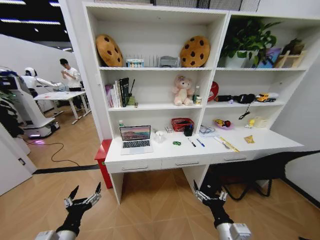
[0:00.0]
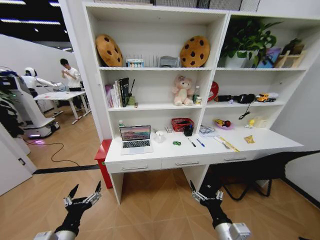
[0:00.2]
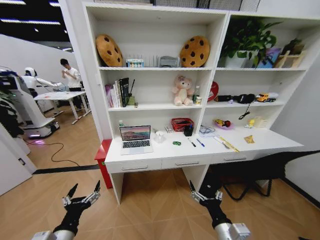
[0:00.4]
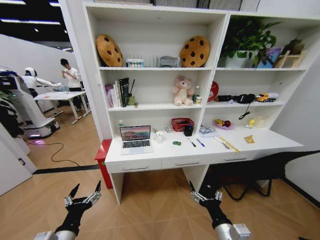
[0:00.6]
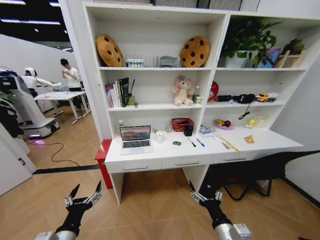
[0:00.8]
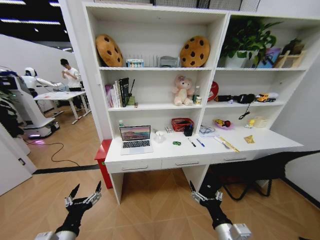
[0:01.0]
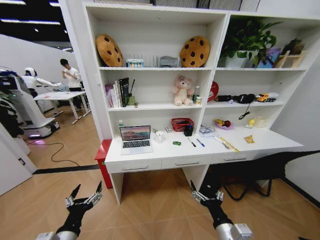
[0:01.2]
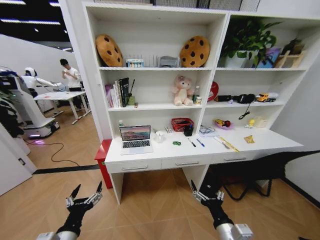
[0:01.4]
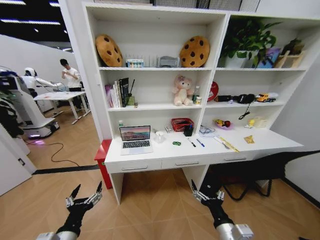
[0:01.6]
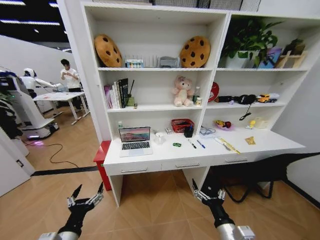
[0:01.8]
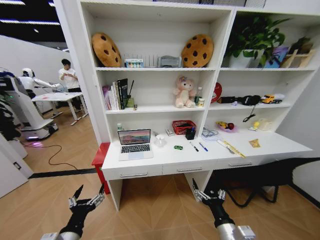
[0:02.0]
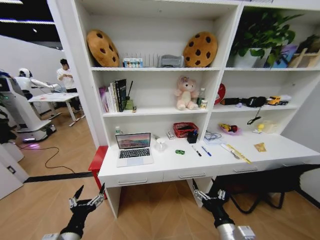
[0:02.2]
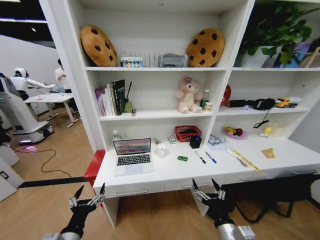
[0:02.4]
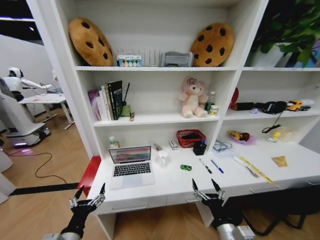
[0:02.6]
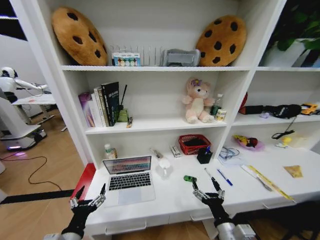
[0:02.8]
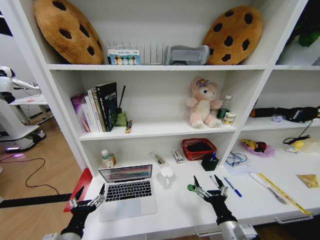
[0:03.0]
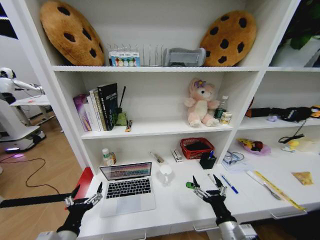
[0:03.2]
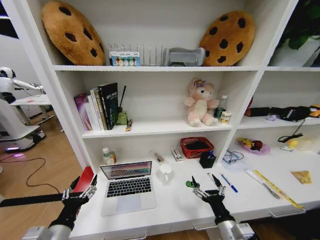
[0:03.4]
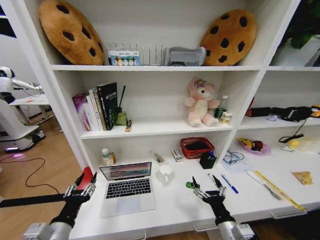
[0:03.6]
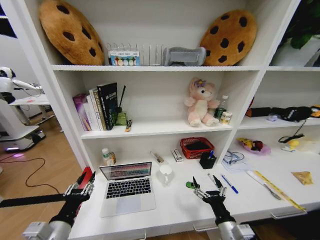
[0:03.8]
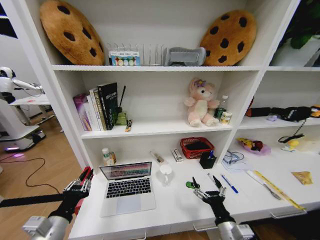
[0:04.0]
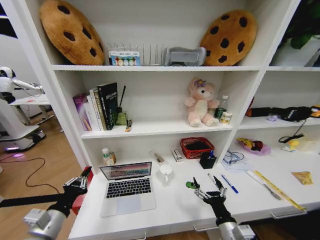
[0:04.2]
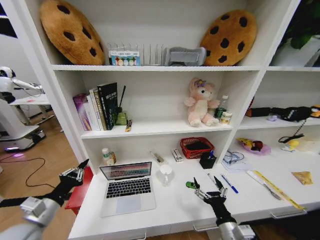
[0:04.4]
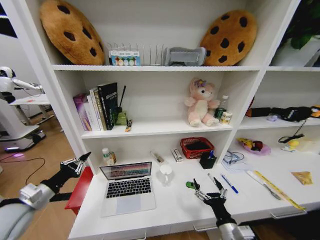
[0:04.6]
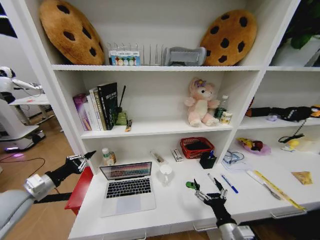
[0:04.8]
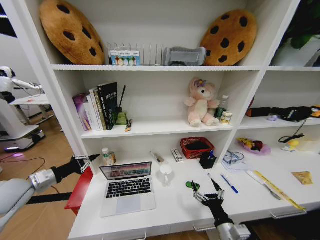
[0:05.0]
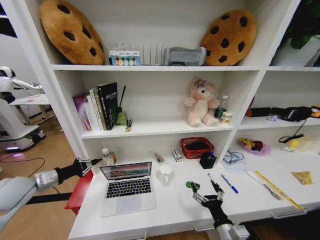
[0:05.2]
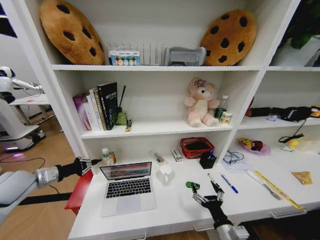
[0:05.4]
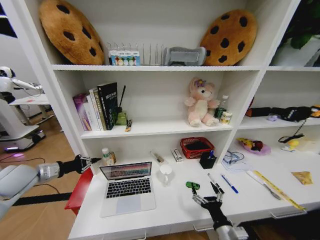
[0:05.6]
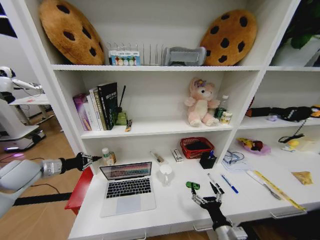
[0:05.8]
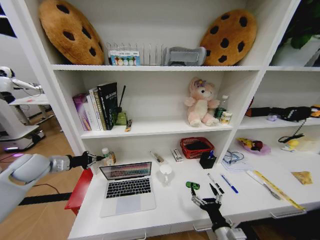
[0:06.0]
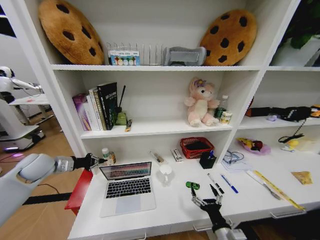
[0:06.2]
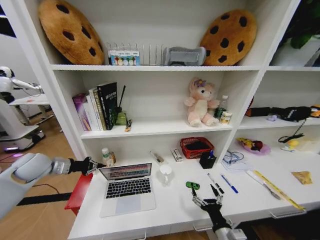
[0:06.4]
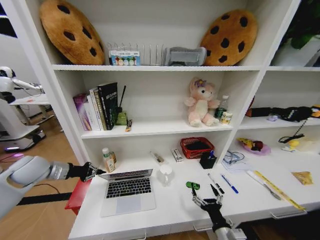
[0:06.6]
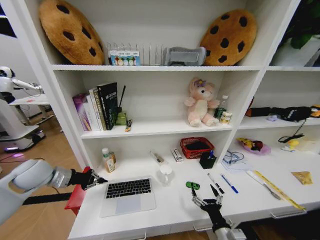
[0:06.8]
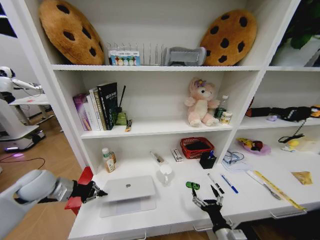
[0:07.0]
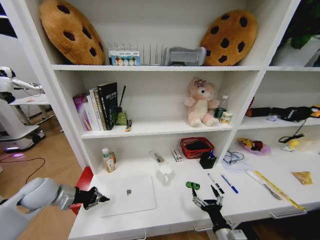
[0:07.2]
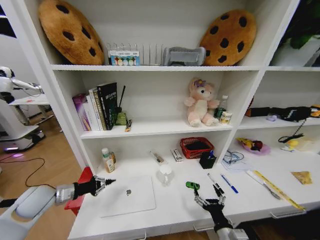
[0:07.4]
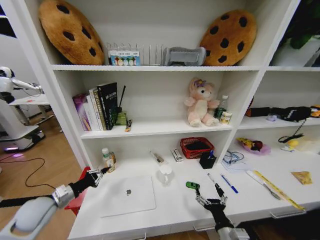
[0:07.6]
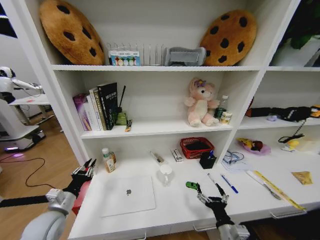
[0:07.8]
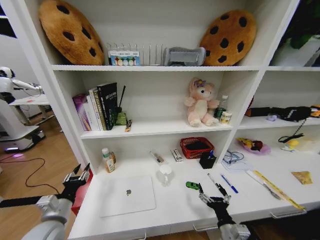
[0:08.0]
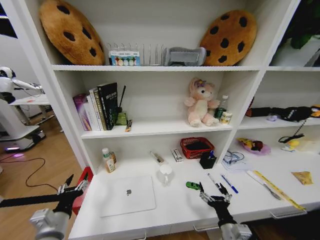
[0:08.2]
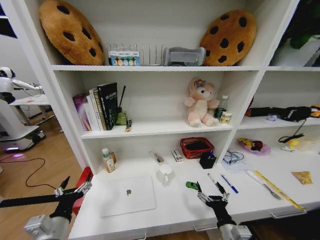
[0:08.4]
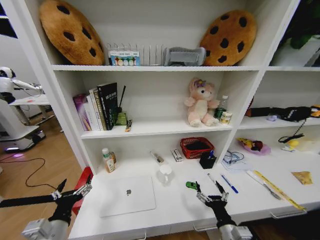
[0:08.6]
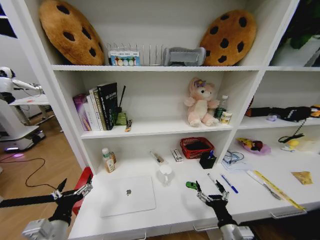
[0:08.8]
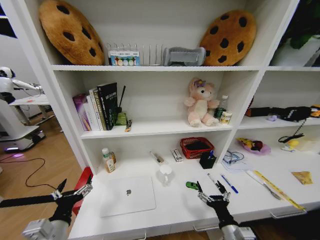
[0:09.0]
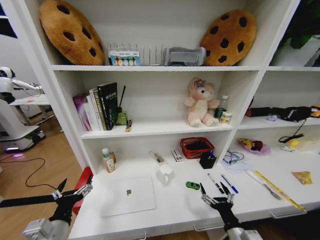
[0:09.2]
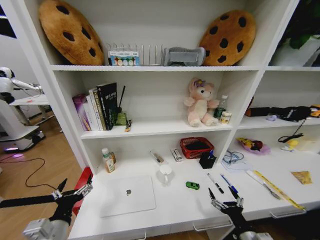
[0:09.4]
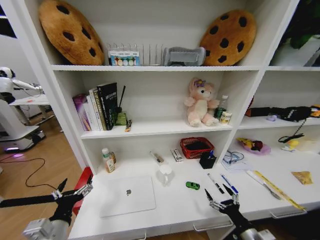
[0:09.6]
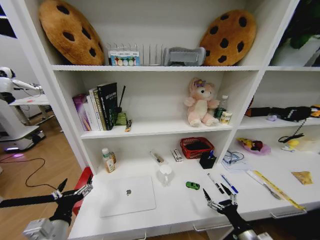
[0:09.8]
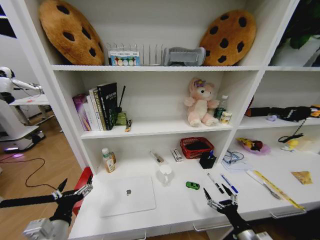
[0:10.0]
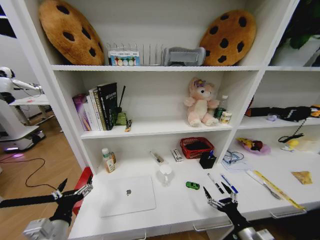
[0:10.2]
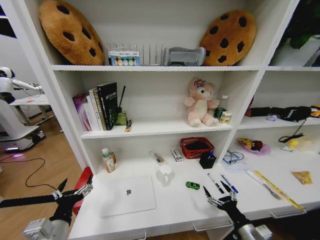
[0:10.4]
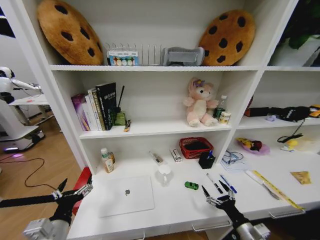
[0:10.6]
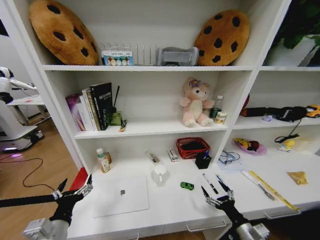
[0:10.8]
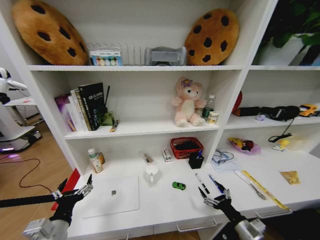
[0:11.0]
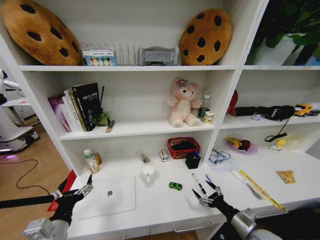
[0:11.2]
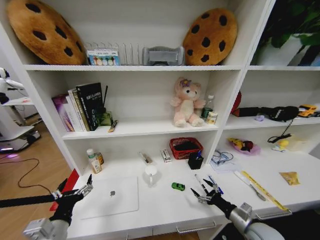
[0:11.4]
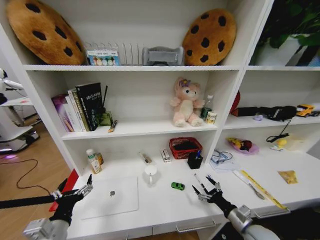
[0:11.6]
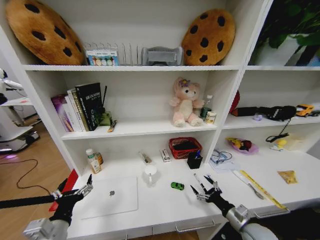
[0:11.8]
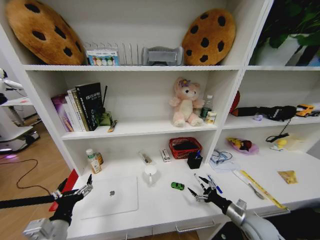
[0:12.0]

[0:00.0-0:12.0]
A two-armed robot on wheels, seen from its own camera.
Task of the whole recording: Organize the objects on the table.
0:03.0 to 0:04.4: The left gripper shifts about 15 cm to the left, forward and upward, and closes.
0:04.4 to 0:06.0: The left gripper goes roughly 20 cm forward and to the left.
0:06.0 to 0:07.6: The left gripper is displaced downward and backward by approximately 15 cm.
0:07.6 to 0:09.0: The left gripper shifts some 20 cm backward and to the right, and opens.
0:09.0 to 0:10.4: The right gripper moves to the right, about 10 cm.
0:10.4 to 0:12.0: The right gripper goes roughly 10 cm forward.

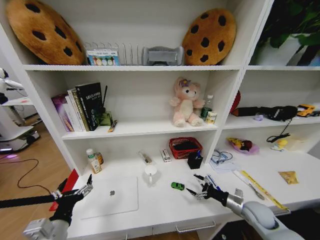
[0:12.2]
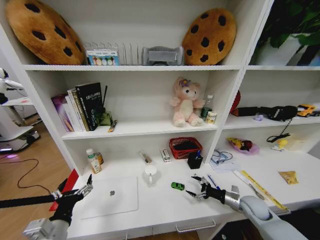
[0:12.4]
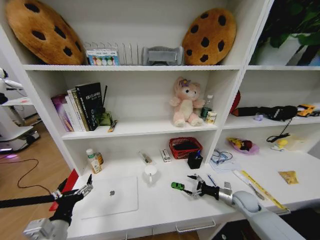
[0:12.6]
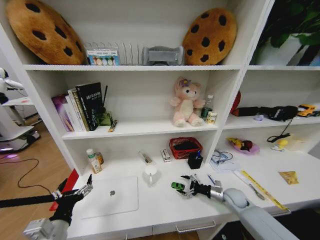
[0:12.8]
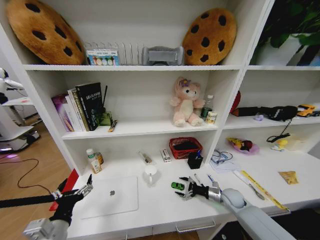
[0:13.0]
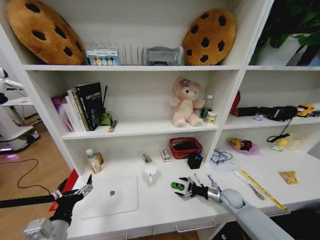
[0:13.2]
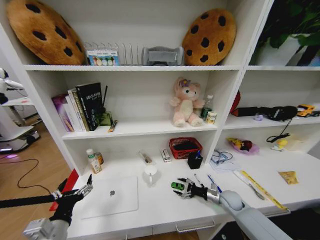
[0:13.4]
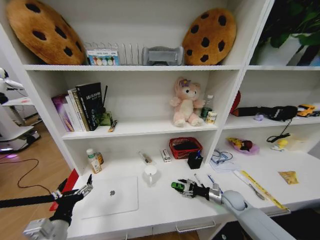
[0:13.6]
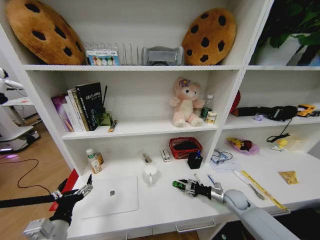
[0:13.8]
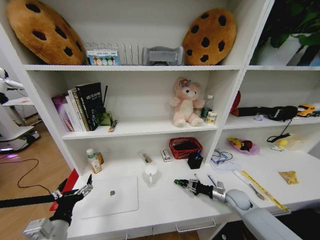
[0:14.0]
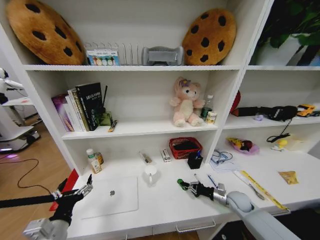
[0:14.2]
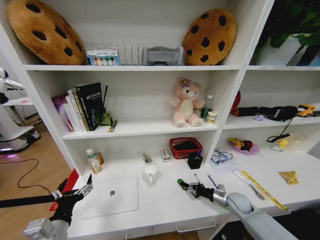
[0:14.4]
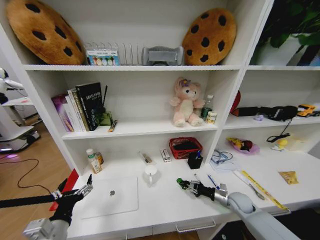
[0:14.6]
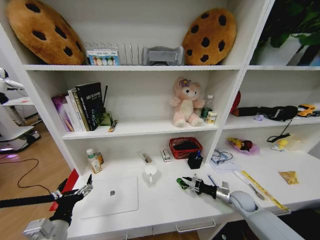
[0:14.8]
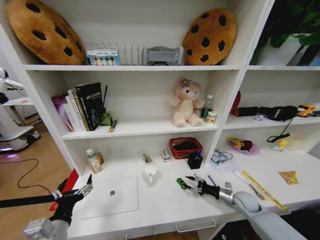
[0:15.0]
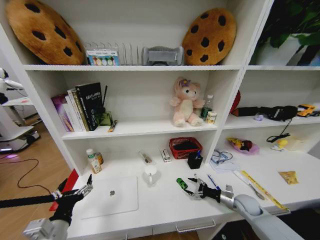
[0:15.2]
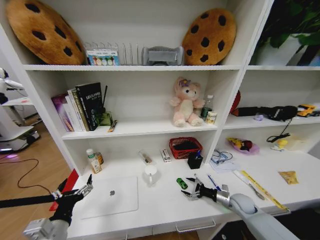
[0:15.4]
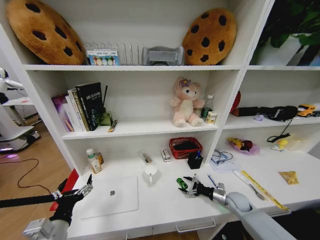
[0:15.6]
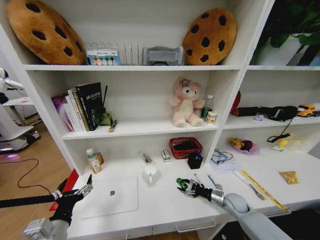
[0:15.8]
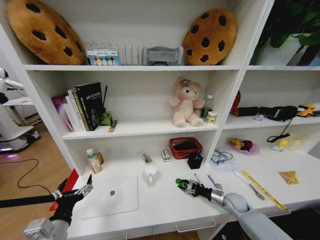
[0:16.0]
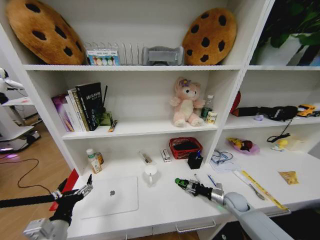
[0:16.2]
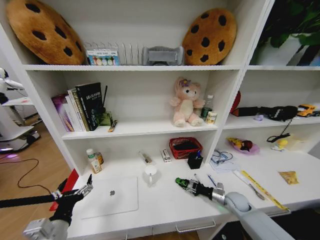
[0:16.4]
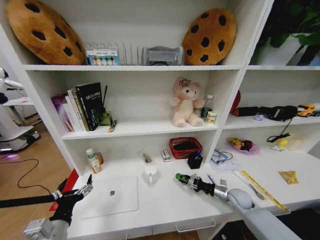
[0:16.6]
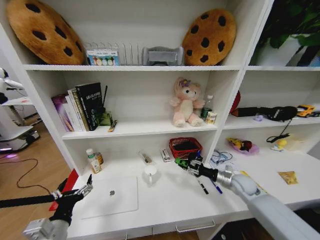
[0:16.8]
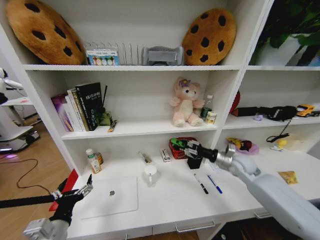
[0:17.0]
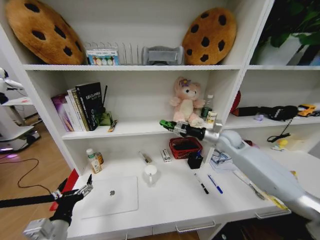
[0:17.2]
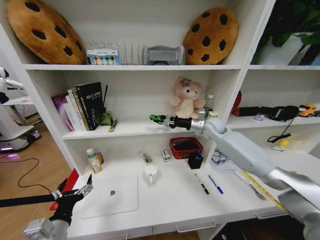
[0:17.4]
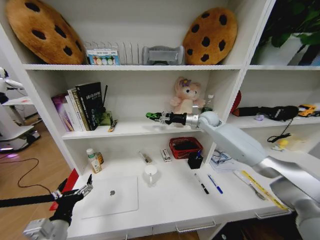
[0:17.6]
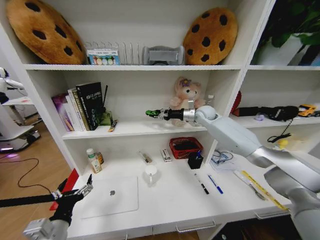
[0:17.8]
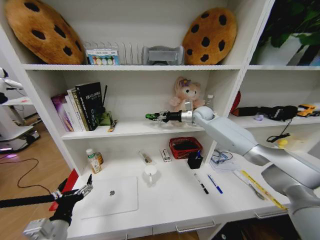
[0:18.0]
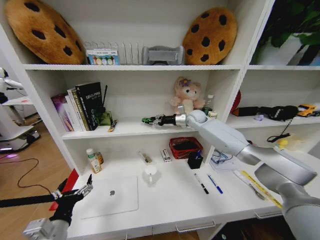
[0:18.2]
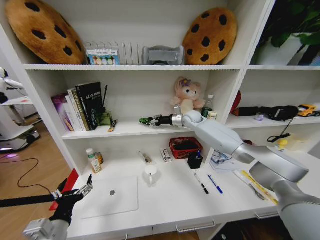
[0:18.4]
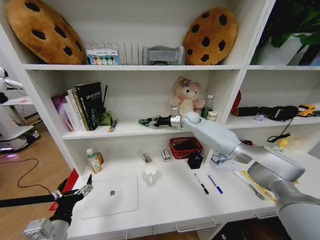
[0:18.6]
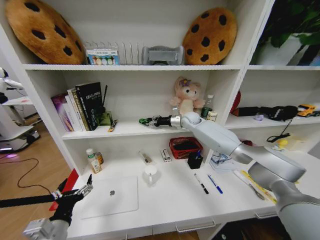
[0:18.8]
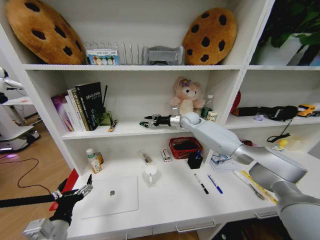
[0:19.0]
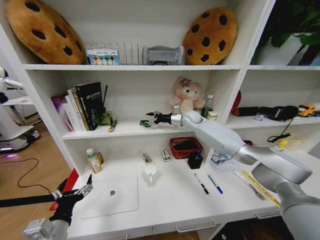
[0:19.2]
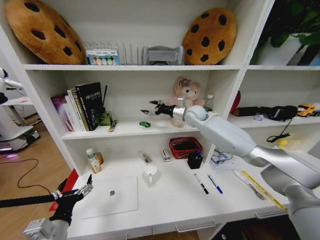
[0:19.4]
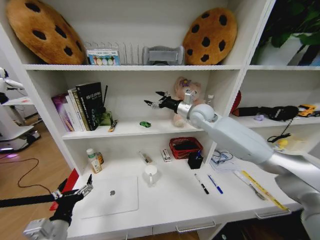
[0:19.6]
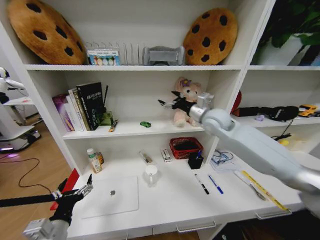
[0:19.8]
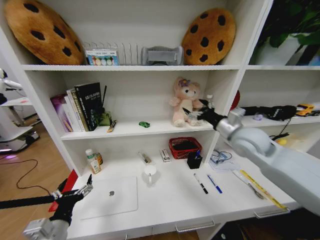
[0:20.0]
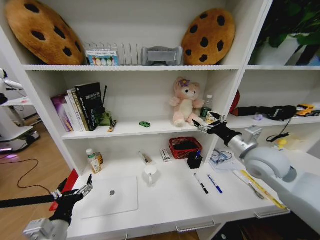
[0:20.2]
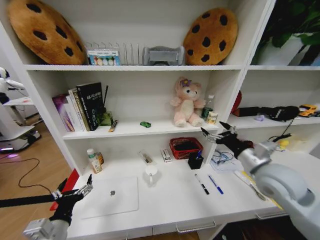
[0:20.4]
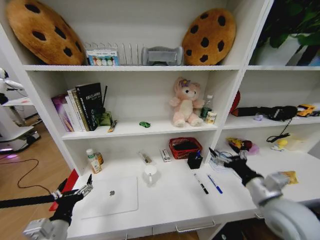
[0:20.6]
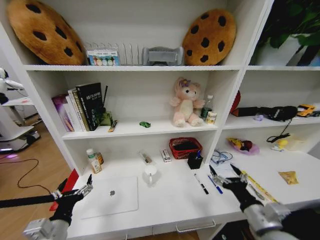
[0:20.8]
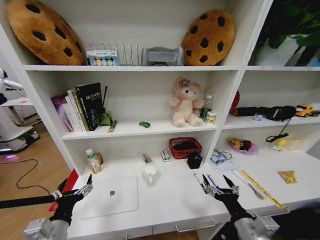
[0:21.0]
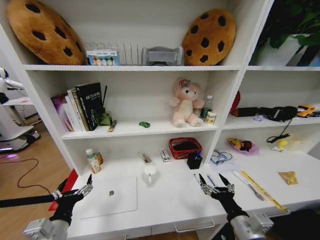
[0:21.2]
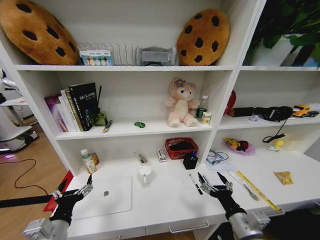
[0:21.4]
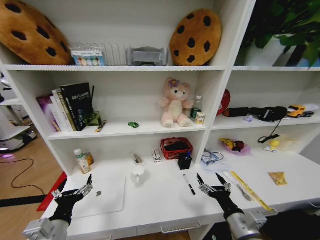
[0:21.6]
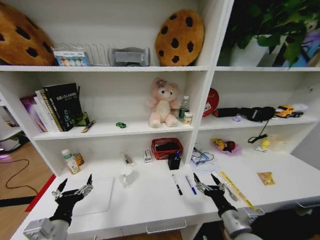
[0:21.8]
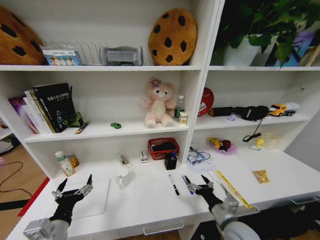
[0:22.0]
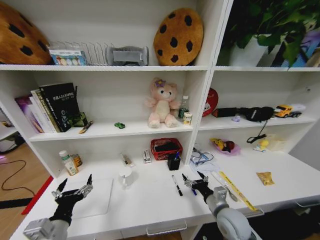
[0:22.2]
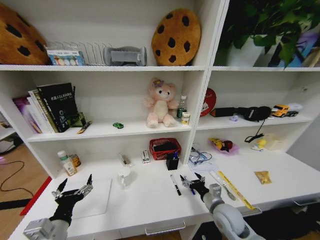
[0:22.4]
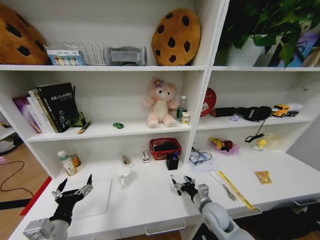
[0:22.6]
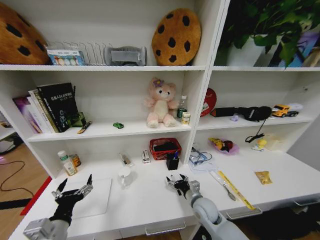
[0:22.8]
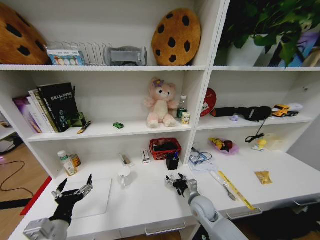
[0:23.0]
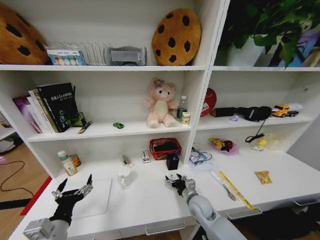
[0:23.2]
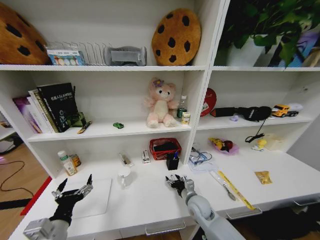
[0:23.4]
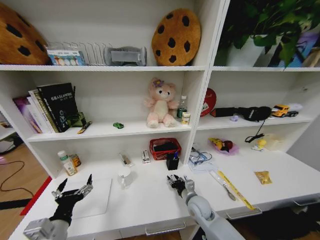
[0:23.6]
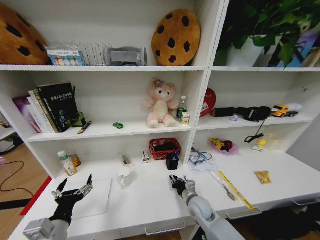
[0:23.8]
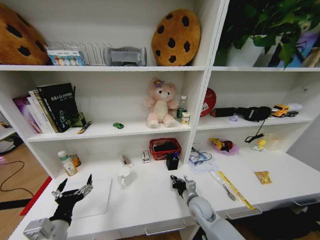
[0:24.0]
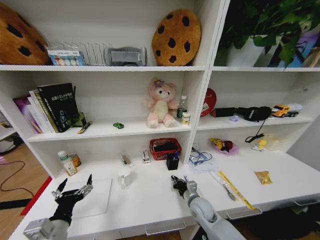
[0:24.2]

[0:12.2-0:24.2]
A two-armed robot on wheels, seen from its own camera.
Task of the whole recording: Organize the objects on the table.
0:12.2 to 0:13.8: The right gripper heads forward, covering about 10 cm, and closes up.
0:13.8 to 0:15.2: The right gripper opens its fingers.
0:15.2 to 0:16.6: The right gripper closes up.
0:16.6 to 0:18.2: The right gripper goes about 50 cm upward, forward and to the left.
0:18.2 to 0:19.8: The right gripper heads backward and upward, covering about 15 cm, and opens its fingers.
0:19.8 to 0:21.2: The right gripper is displaced backward and downward by some 40 cm.
0:21.2 to 0:22.6: The right gripper heads forward and downward, covering some 15 cm.
0:22.6 to 0:24.2: The right gripper goes approximately 10 cm to the left and downward, and closes its fingers.
